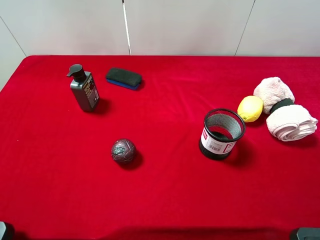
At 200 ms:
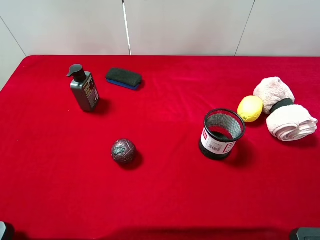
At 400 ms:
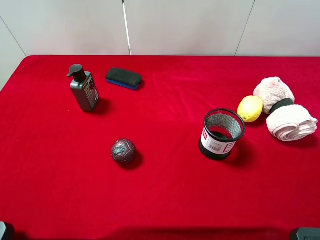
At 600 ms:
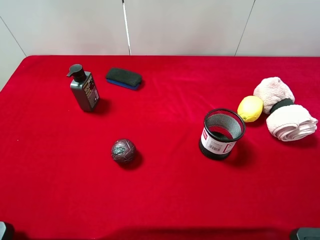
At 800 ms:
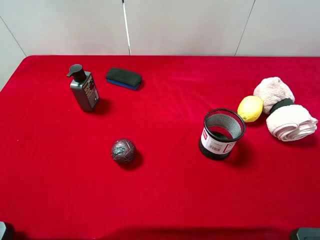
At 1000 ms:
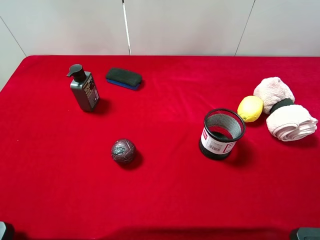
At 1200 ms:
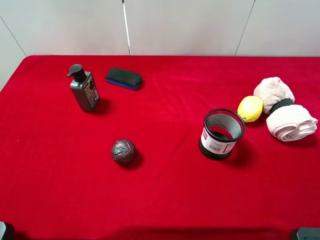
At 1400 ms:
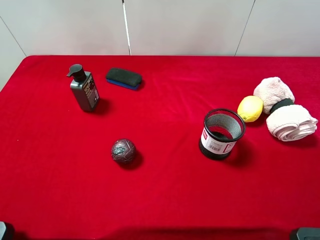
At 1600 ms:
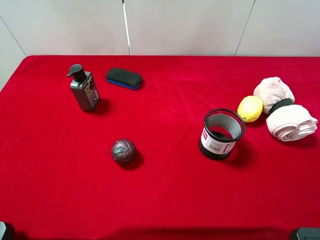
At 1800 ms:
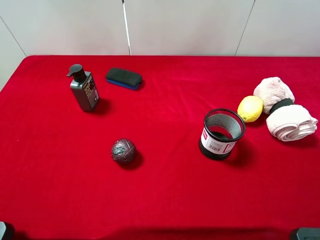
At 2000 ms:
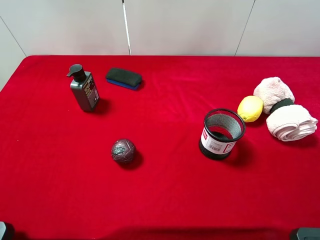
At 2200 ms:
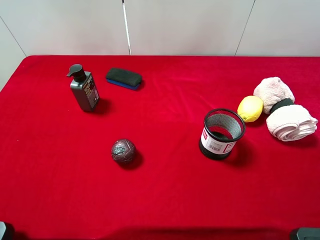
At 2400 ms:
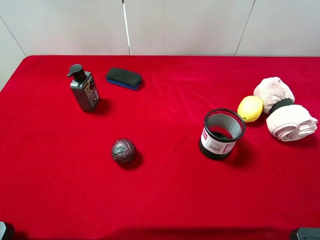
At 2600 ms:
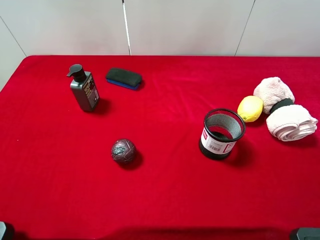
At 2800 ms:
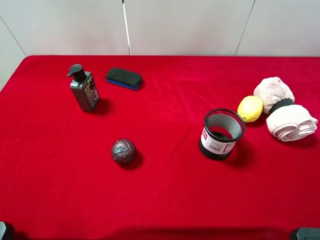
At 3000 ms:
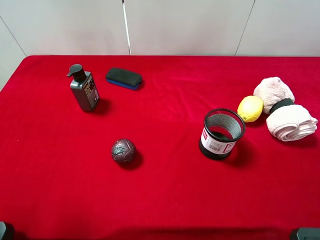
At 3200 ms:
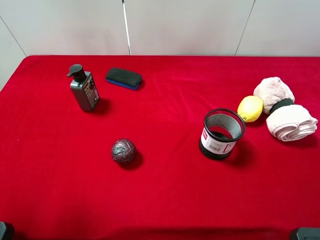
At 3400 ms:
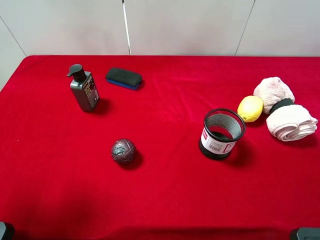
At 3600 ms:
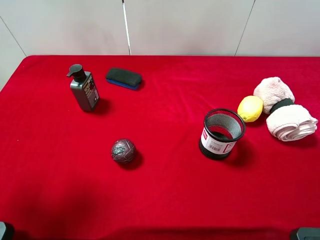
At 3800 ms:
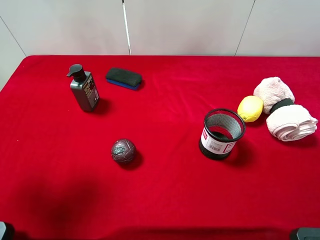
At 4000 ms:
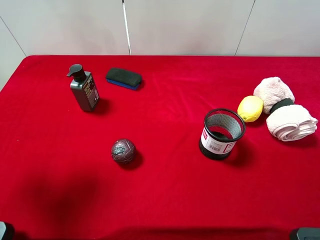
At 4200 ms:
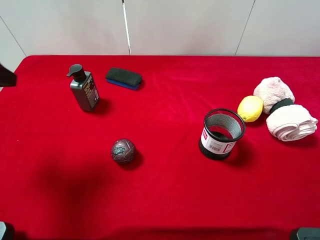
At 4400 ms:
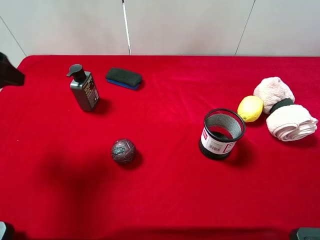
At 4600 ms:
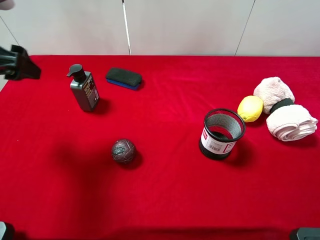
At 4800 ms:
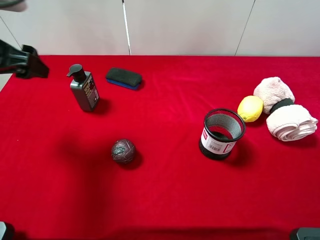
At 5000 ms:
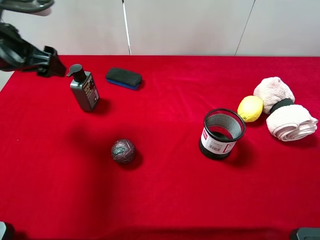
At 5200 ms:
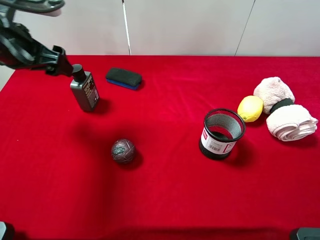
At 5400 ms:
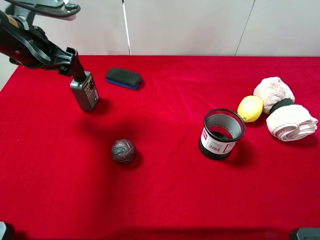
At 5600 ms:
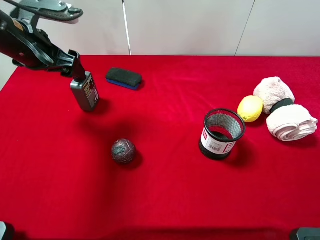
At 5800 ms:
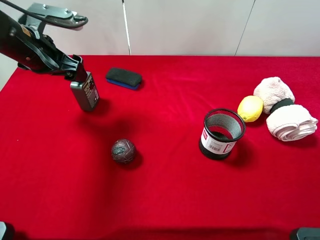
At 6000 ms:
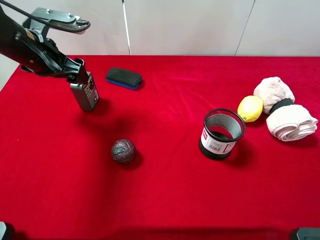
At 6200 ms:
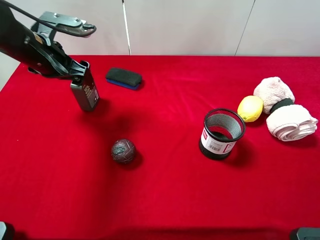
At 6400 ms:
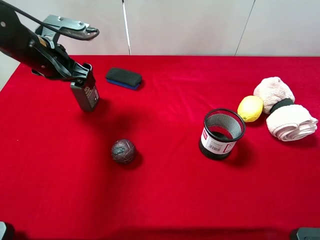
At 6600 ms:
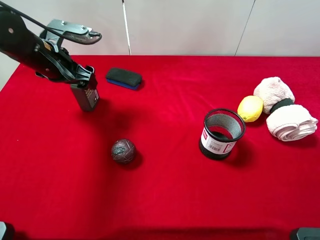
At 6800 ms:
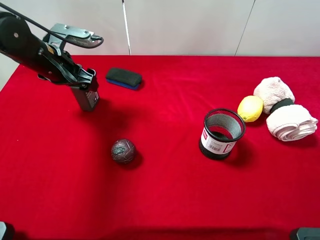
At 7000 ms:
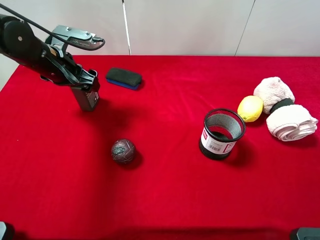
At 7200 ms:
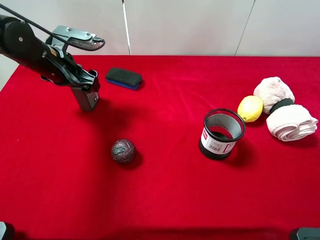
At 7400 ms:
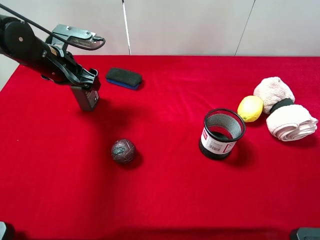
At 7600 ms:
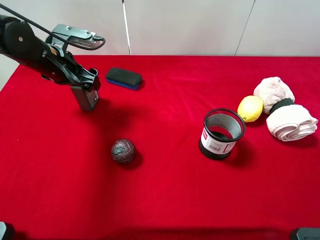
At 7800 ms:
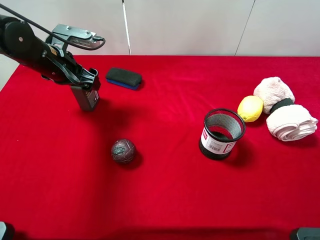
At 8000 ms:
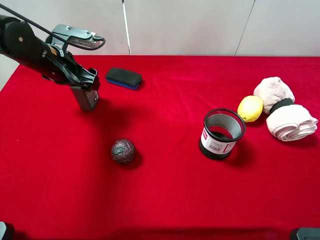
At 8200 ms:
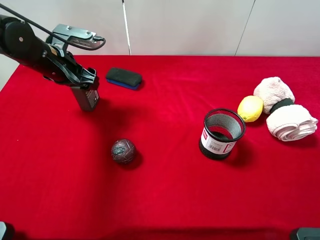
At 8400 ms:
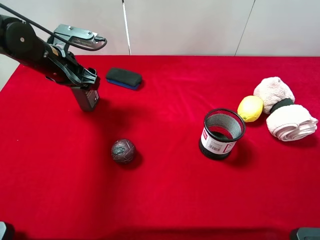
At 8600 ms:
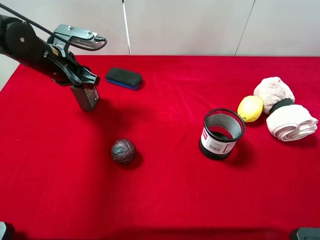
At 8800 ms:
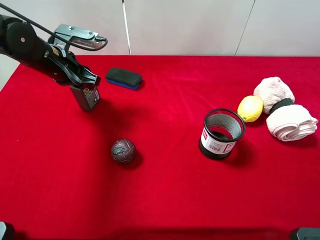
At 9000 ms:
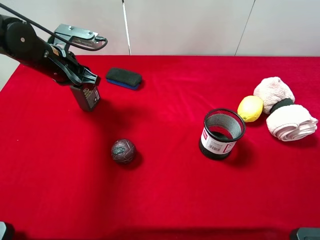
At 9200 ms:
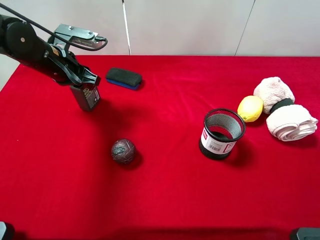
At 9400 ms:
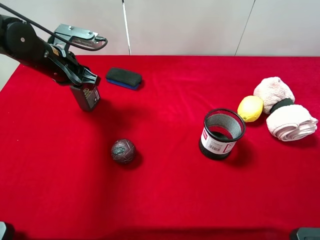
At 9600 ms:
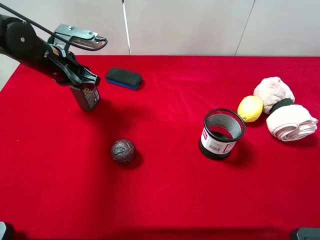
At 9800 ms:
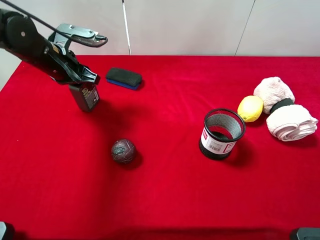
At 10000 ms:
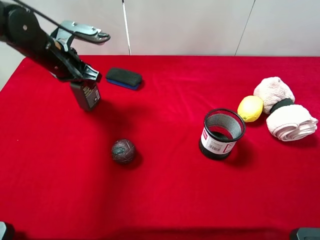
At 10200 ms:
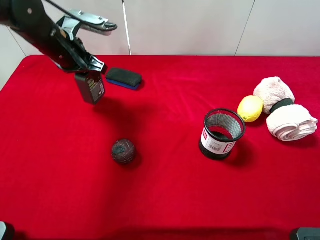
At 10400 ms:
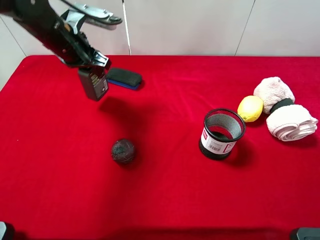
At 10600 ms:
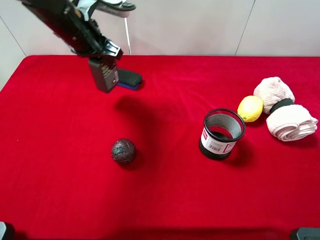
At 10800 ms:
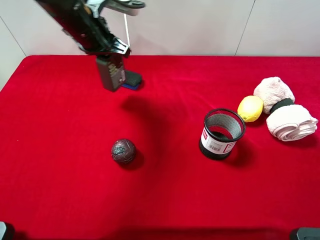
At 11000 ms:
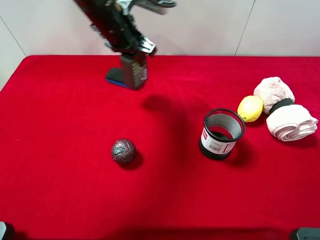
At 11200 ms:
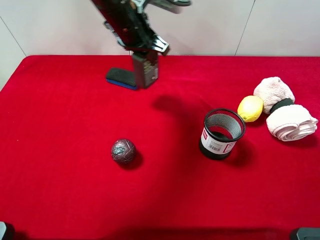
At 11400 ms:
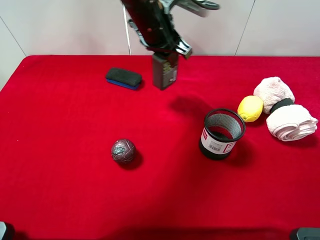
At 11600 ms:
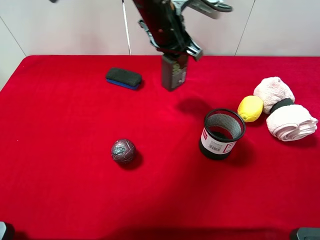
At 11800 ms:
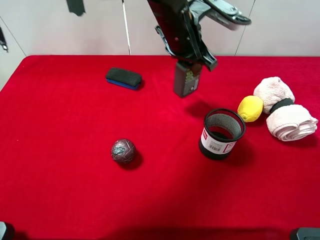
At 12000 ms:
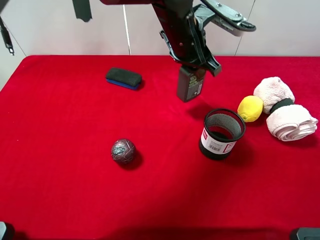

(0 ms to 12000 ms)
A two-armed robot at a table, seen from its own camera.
Task of the whole recording: the gripper move the object.
Step, 0 ms - 8800 ms: Grasp the hard facial cleanser with the left gripper.
0 ms - 1600 ms: Both grippers stay about where they are.
3000 ms - 4400 ms: The left gripper is displaced forward by some 15 cm.
4400 ms - 6000 ms: The left gripper travels forward, downward and to the right by about 15 cm.
6000 ms - 7600 ms: The grippers make only small movements.
7600 ms - 9000 ms: The left gripper closes its fingers.
9000 ms - 10400 ms: The left gripper changes place by about 5 cm.
10400 ms - 12000 ms: The left gripper moves to the right, roughly 25 cm.

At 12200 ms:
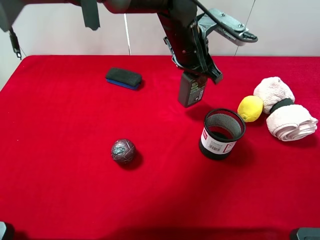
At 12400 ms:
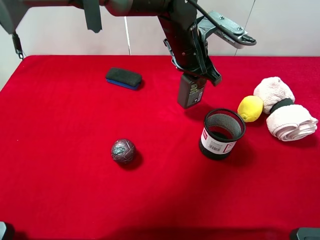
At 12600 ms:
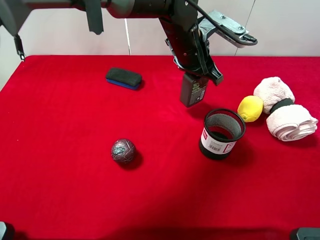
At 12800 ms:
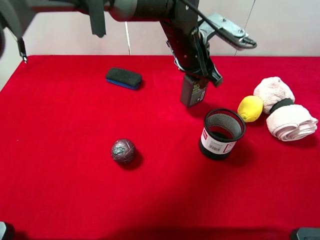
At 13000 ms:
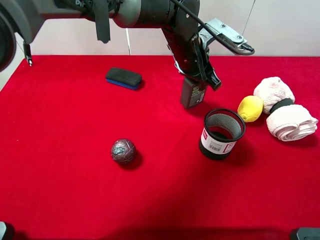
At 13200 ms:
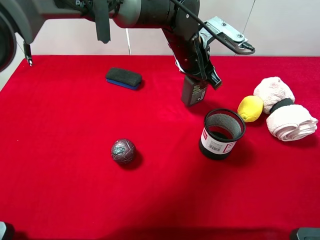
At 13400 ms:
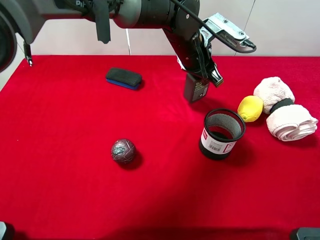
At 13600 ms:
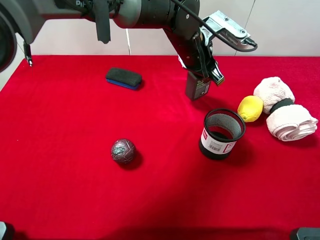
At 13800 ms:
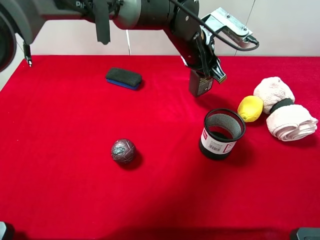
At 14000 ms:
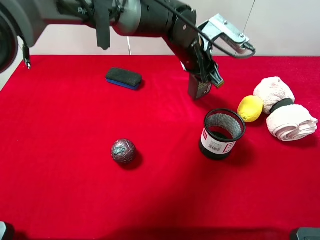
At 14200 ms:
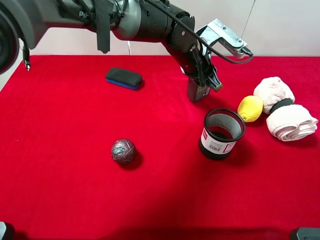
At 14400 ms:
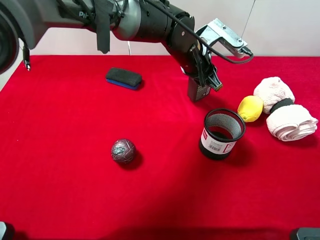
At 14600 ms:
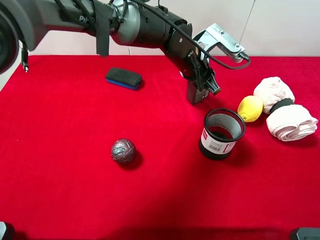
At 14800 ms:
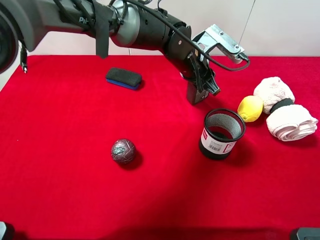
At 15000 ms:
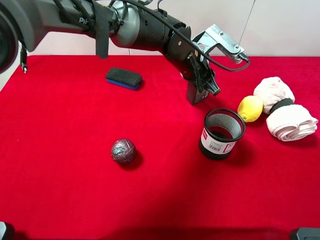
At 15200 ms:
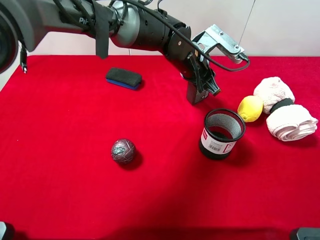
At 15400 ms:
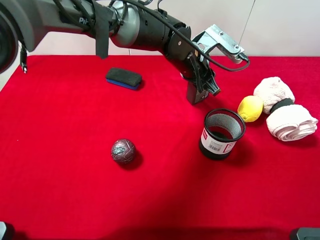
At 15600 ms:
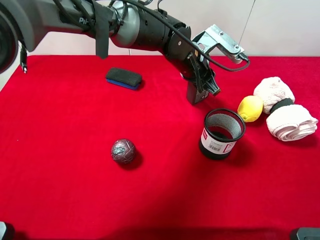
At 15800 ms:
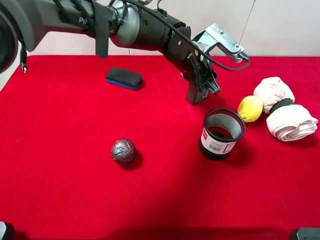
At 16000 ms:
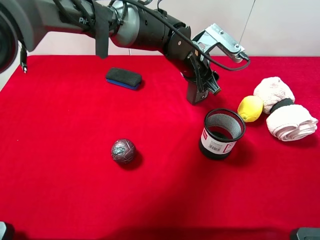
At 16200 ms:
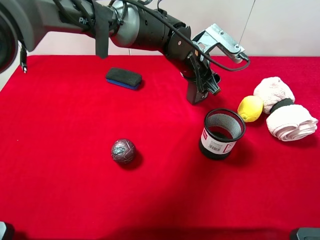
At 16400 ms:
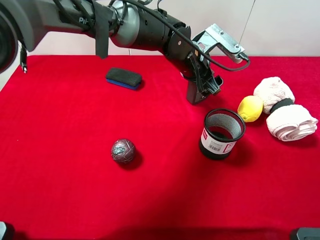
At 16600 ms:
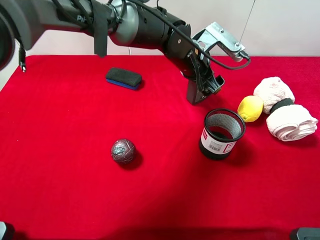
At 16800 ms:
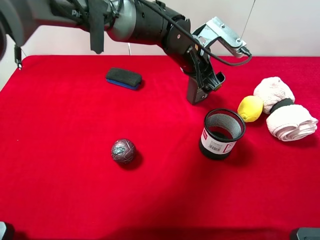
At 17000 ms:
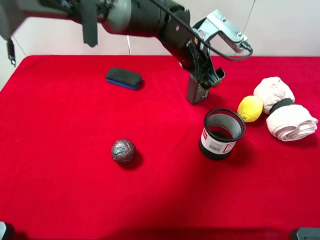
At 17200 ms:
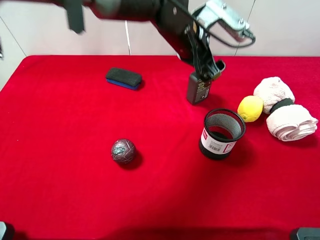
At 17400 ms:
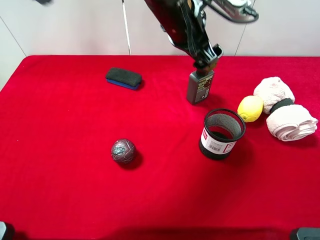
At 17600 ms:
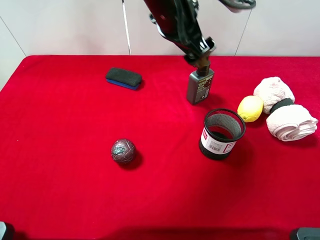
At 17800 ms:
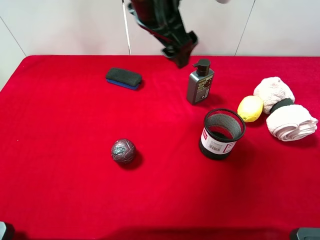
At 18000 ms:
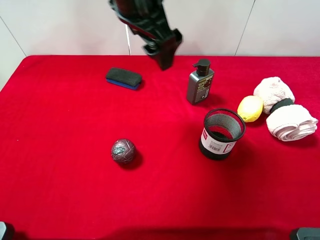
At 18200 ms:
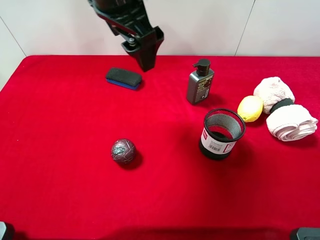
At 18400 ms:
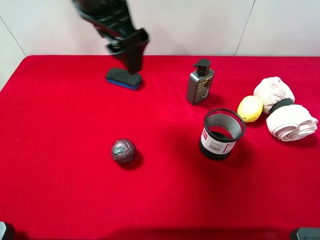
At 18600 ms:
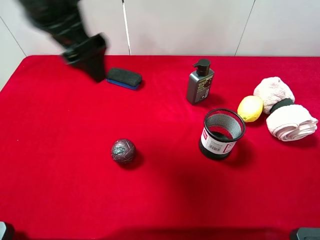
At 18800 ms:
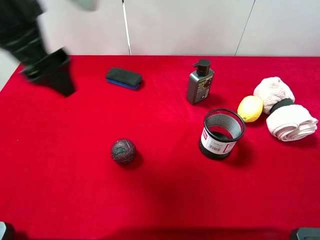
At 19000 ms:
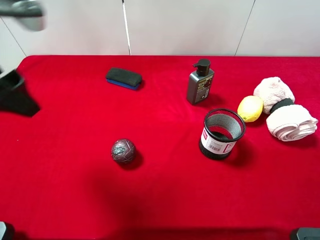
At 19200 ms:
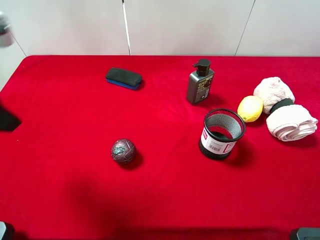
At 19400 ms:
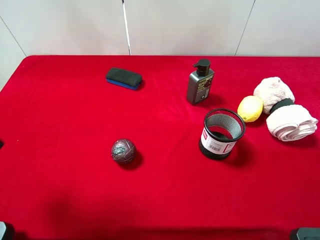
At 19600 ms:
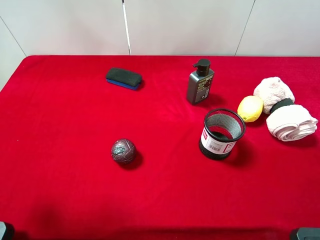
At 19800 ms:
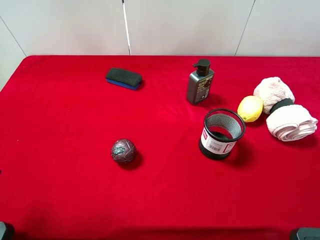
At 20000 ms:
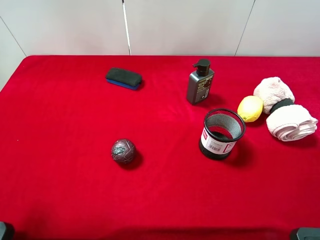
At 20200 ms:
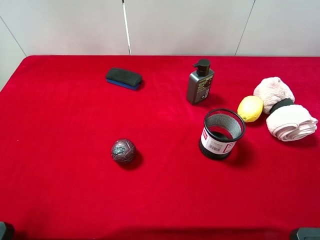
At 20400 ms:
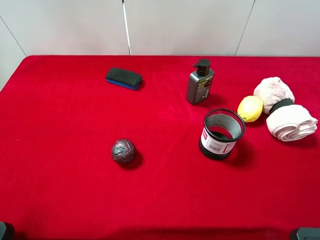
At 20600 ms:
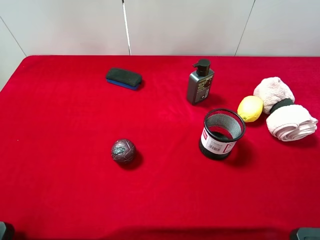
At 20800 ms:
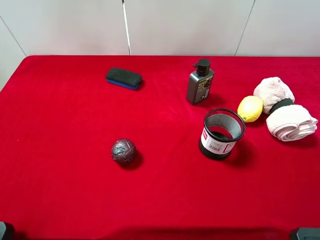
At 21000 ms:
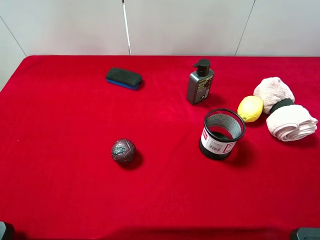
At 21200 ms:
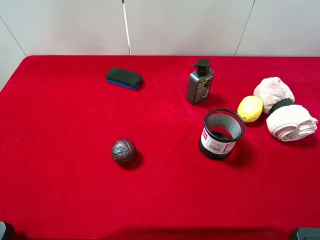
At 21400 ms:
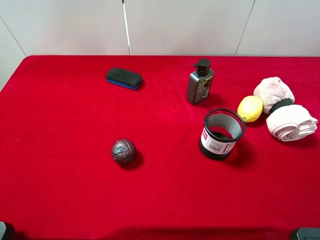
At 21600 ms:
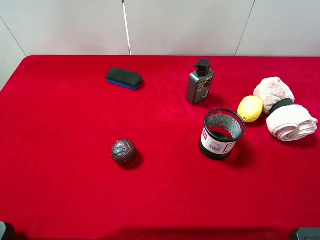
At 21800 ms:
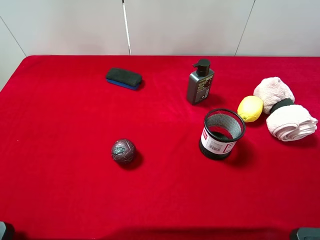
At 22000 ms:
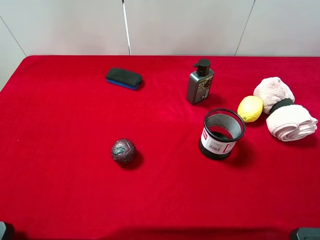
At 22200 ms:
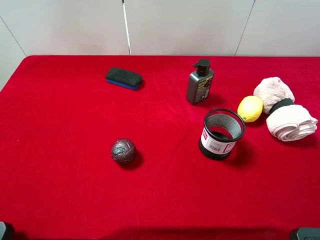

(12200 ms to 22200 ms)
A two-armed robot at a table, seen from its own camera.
Task of the whole recording: the gripper move the object.
Step, 12200 ms - 17600 ms: Place the hard facial cleanser on the table with the left gripper.
12200 ms - 15000 ms: The grippers move only a little.
16400 ms - 18000 ms: The left gripper heads upward, to the left and backward, covering about 20 cm.
18000 ms - 19400 ms: The left gripper is displaced to the left and backward by approximately 30 cm.
